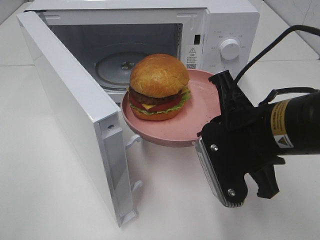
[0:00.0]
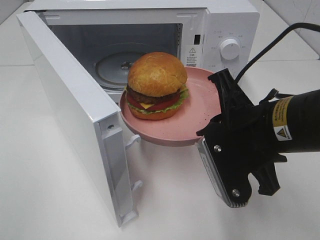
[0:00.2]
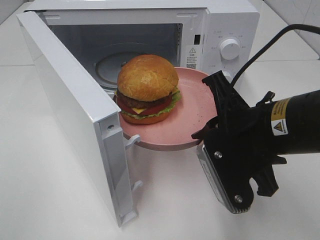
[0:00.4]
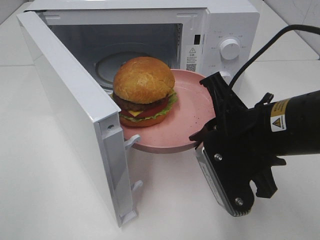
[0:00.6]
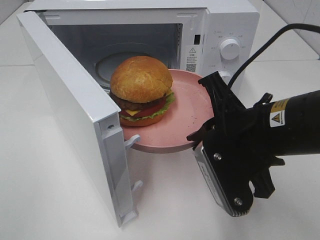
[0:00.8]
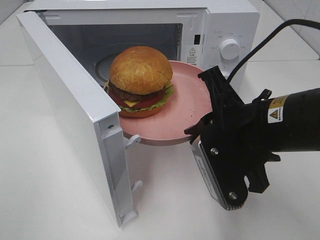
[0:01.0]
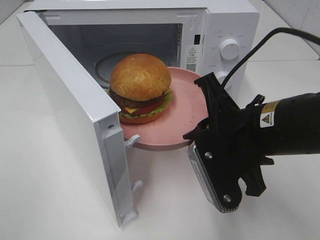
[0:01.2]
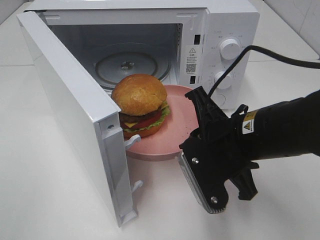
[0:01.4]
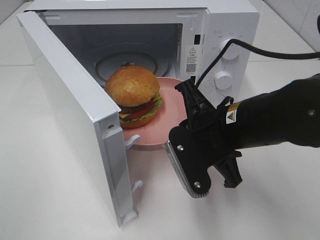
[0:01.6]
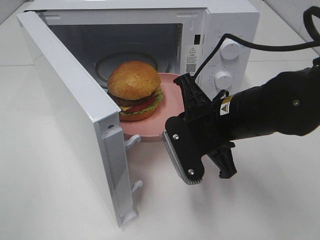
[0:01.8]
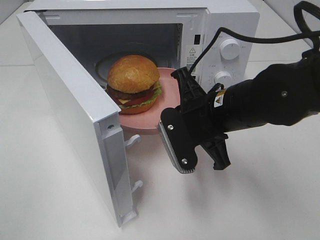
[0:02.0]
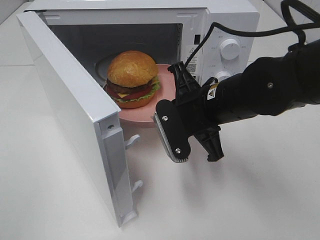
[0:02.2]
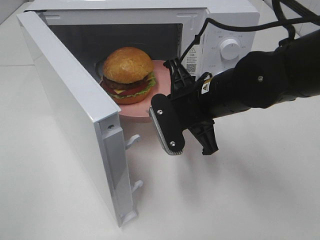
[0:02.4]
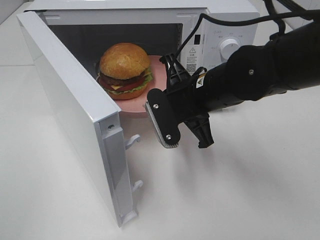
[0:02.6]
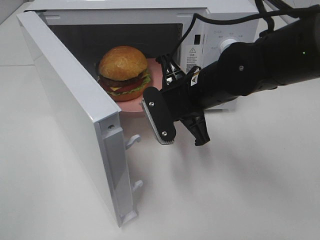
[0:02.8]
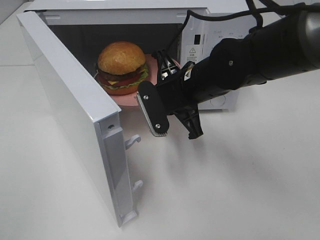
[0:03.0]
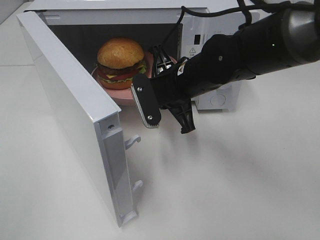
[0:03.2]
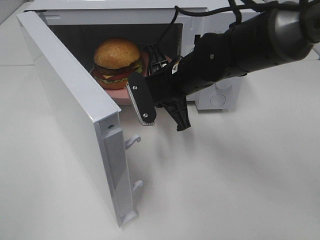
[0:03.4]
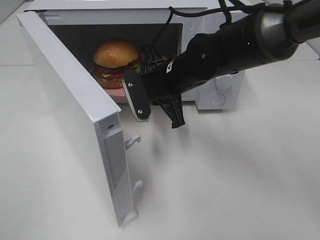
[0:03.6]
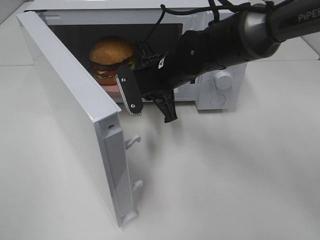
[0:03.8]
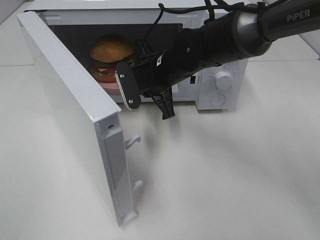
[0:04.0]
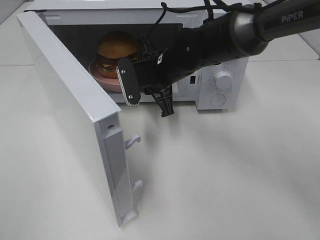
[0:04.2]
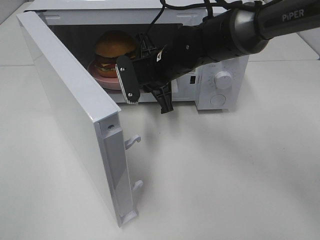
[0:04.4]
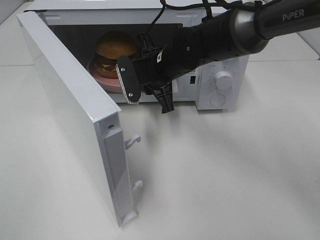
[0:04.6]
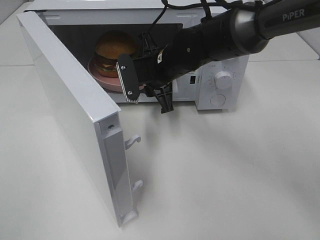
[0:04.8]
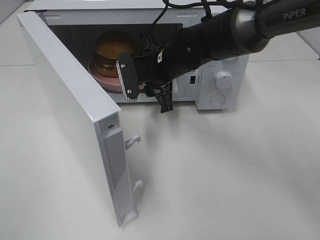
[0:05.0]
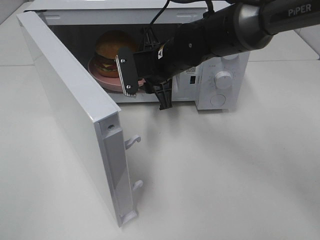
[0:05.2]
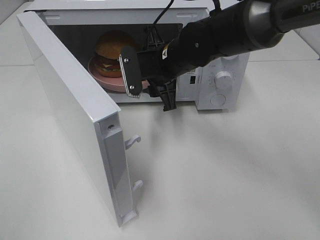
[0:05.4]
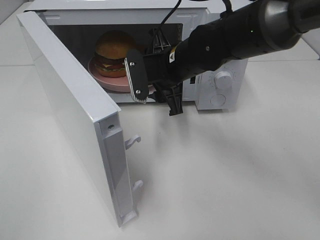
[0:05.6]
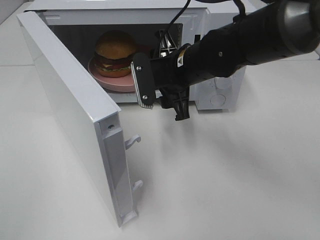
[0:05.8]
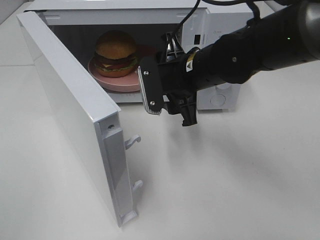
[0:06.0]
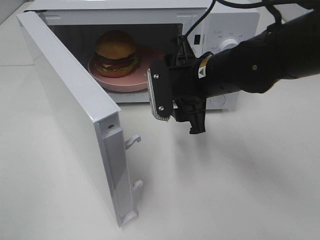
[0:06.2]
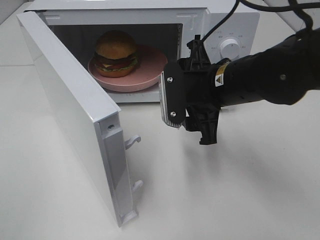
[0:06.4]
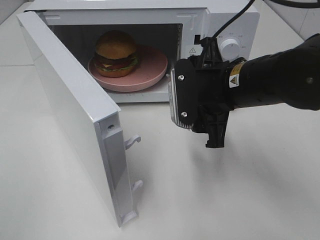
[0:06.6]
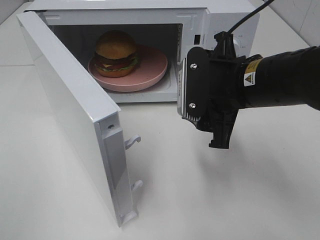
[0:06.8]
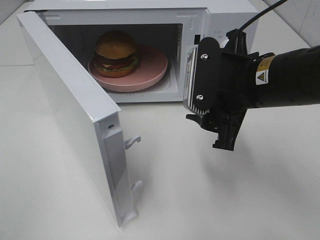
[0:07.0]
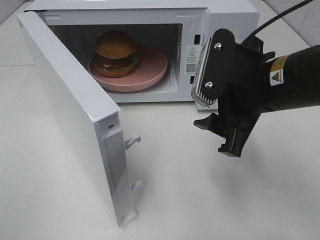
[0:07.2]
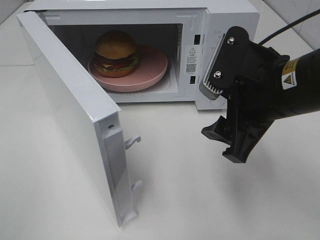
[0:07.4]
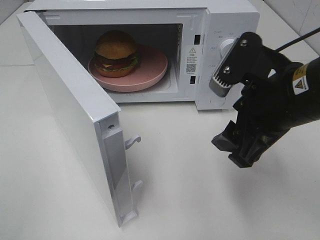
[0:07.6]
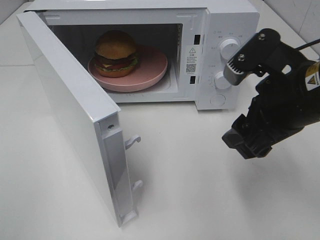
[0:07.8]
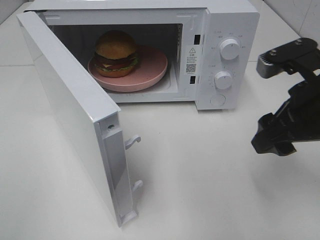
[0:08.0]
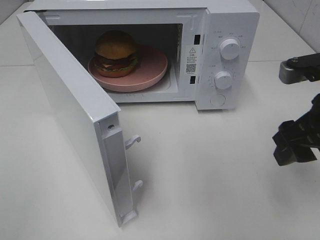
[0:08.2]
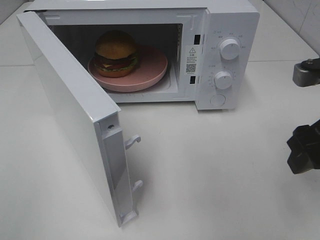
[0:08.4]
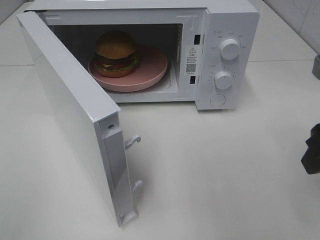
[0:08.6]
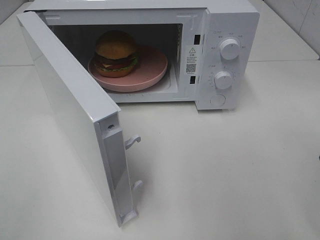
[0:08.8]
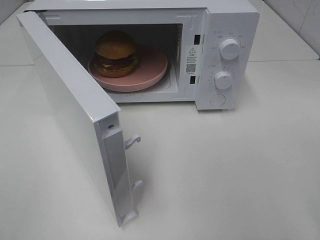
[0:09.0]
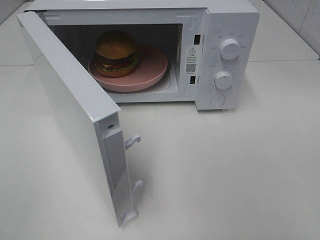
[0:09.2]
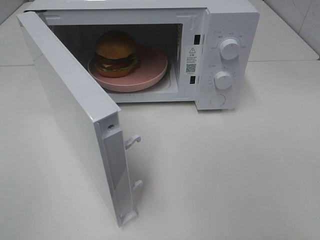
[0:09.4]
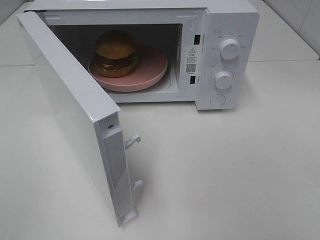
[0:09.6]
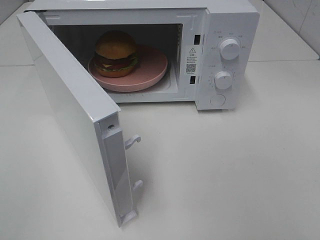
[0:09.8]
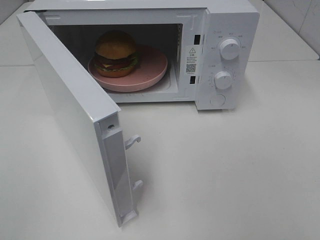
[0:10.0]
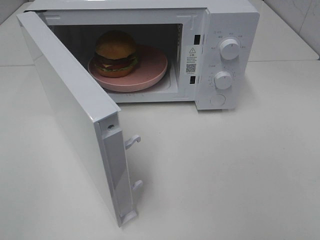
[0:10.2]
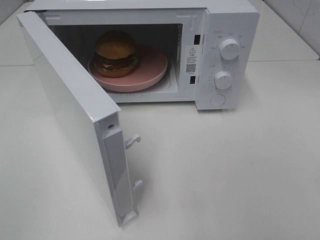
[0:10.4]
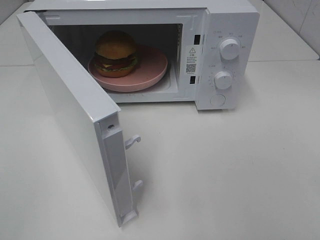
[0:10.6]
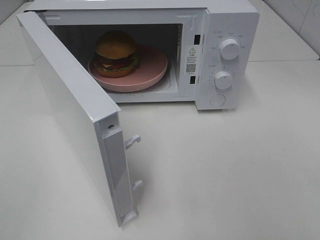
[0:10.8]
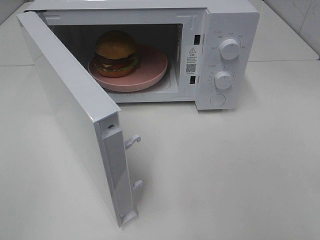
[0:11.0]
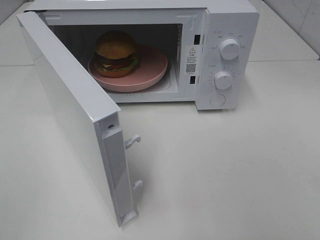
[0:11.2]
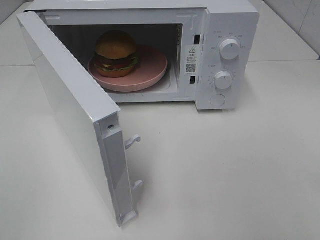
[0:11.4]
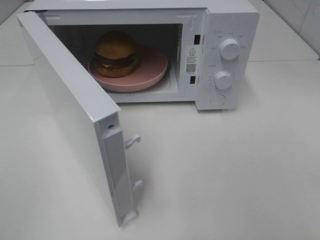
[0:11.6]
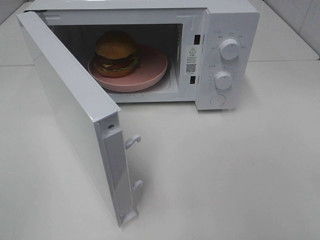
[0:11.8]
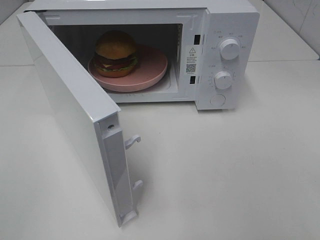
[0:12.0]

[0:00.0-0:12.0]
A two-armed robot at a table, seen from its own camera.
Task of the whole recording: Heat the burger.
Step, 0:00.0 to 0:04.4: Right hand: place the plate in the microwave.
0:00.0 to 0:01.6: The right gripper moves about 5 cm.
0:01.6 to 0:03.0: The right gripper is displaced forward by some 10 cm.
0:03.0 to 0:04.4: The right gripper goes approximately 5 cm forward.
0:04.4 to 0:06.0: The right gripper is displaced backward by about 5 cm, and opens.
0:06.0 to 0:07.6: The right gripper goes about 15 cm backward, to the right and upward.
0:07.6 to 0:09.0: The right gripper moves to the right, backward and upward, roughly 15 cm.
0:10.4 to 0:12.0: Neither gripper changes place.

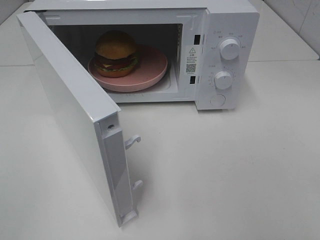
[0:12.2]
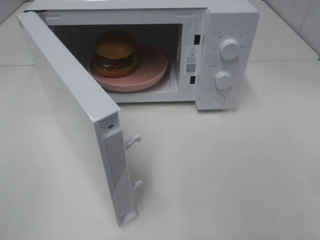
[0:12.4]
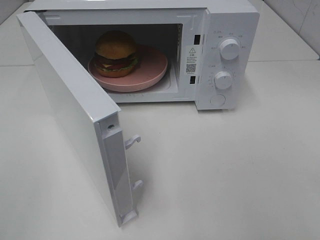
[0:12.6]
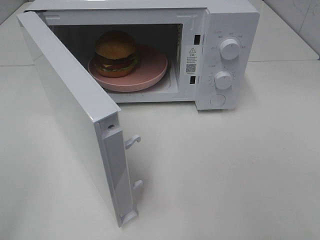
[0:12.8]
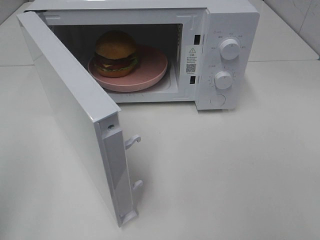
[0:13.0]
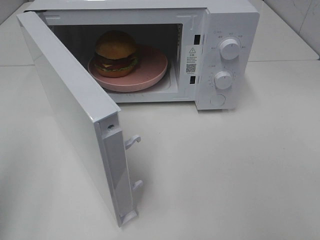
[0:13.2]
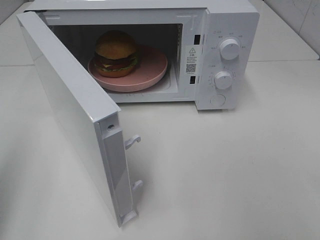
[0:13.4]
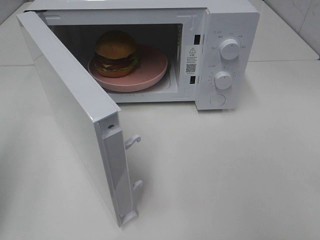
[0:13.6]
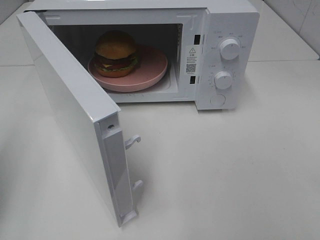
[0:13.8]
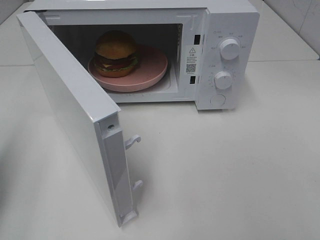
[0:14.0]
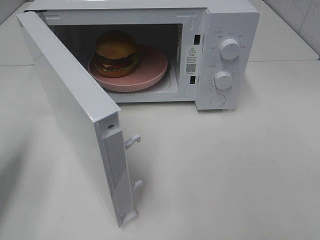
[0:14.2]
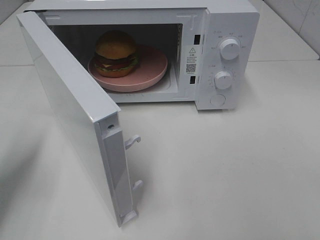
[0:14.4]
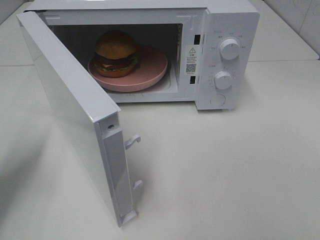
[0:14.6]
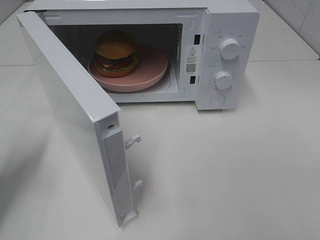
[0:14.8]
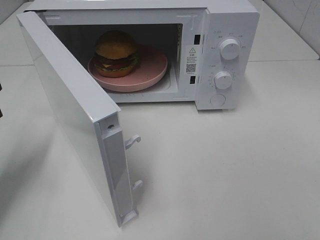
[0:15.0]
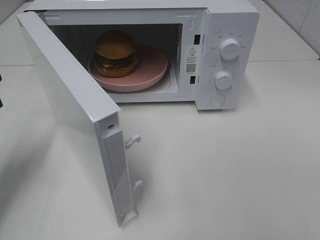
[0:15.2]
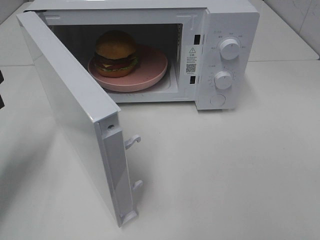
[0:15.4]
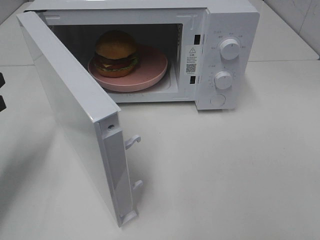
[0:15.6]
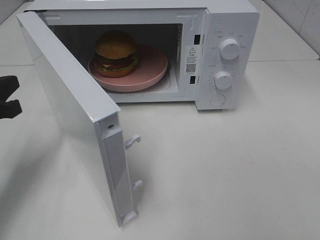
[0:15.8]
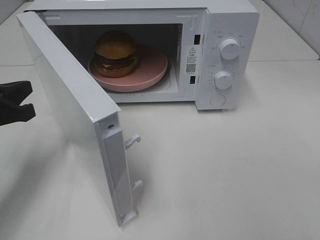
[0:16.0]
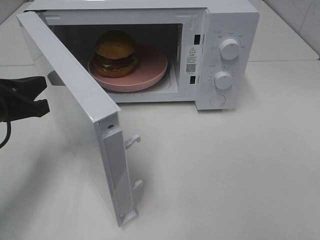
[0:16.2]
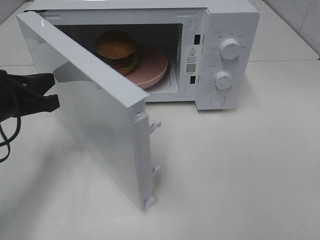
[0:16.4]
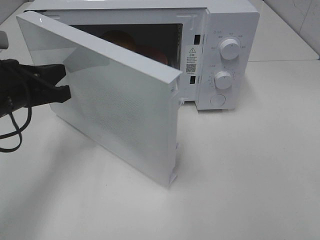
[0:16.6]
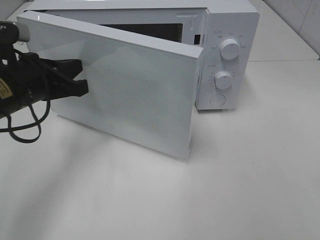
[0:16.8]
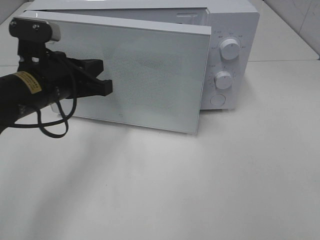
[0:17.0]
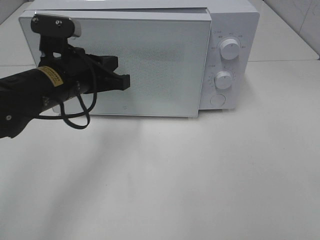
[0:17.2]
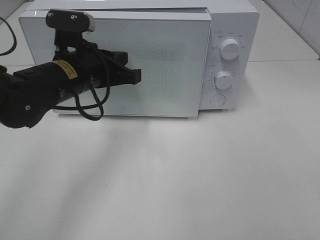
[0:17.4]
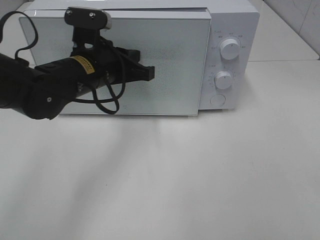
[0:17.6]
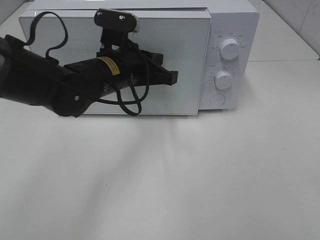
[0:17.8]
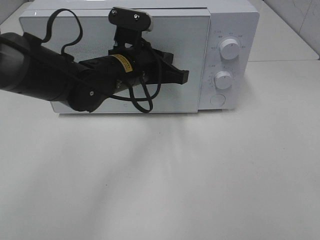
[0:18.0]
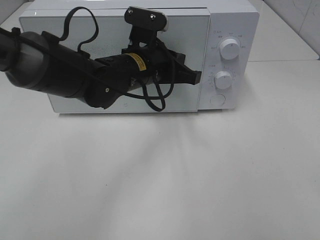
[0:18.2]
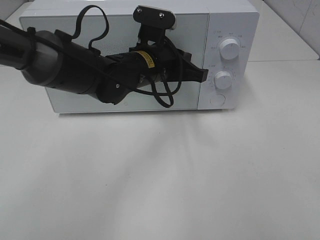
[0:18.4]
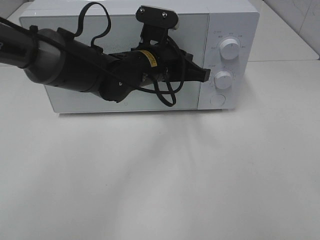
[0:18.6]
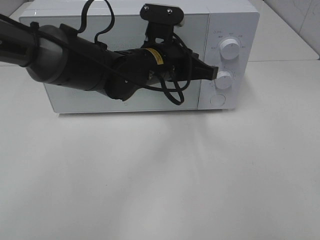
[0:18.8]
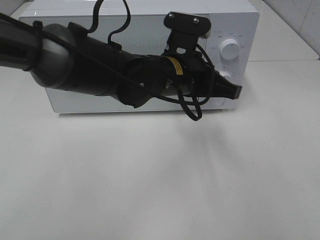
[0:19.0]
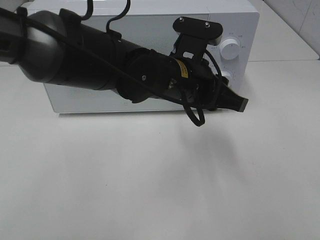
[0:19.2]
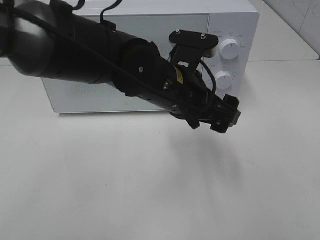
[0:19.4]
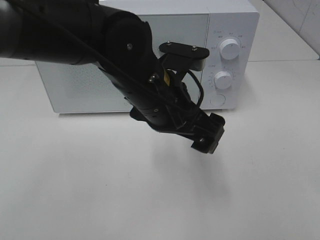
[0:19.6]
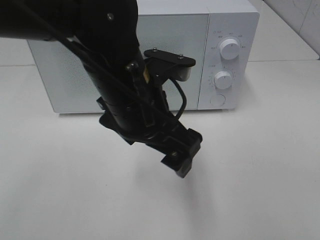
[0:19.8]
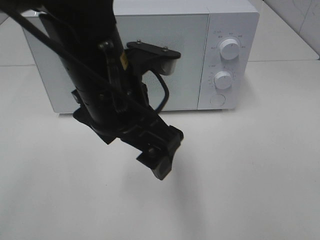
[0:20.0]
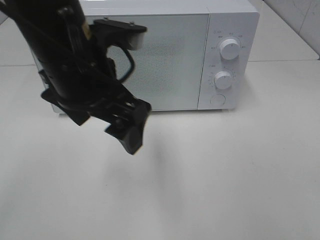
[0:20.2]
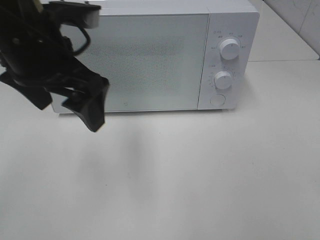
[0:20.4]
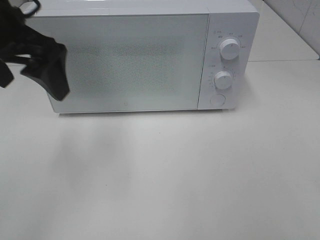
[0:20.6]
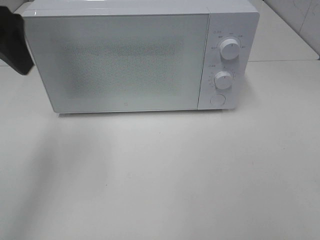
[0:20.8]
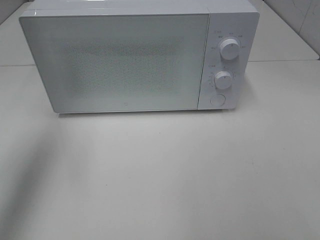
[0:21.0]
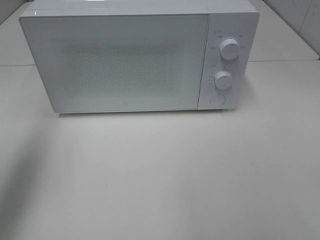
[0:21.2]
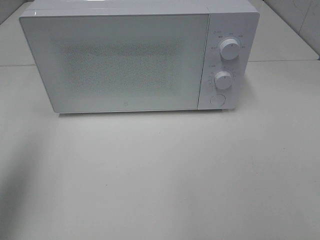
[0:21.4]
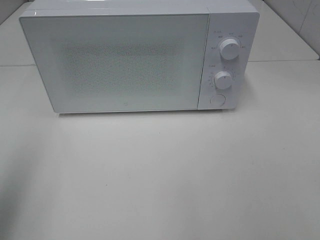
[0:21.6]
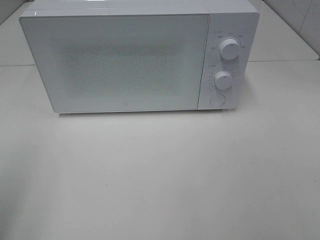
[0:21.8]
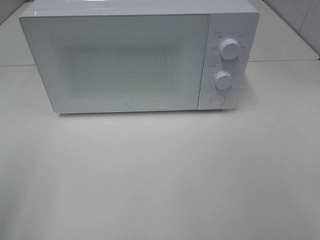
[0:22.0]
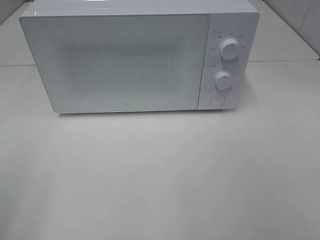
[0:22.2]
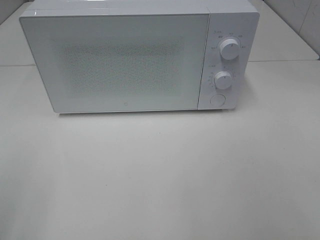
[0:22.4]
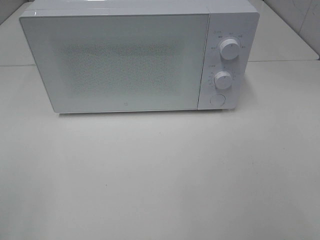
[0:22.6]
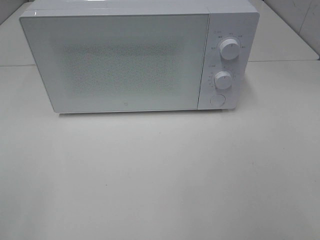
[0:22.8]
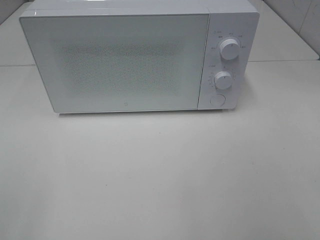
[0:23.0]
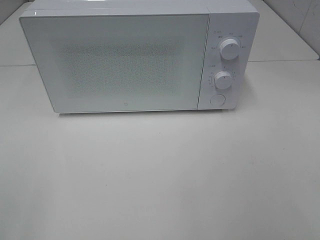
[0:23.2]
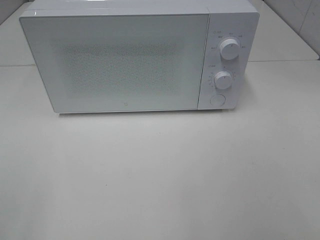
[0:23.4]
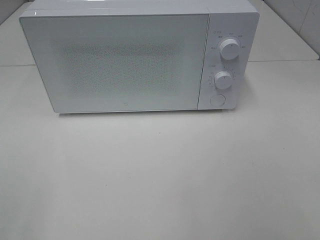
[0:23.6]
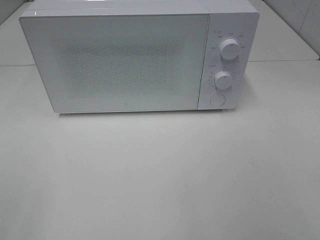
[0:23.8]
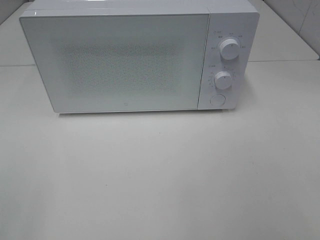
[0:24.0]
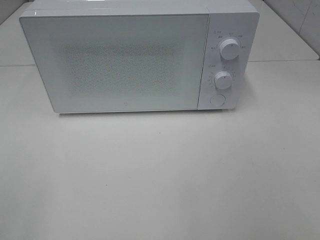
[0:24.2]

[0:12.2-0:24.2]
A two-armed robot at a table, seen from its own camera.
Task of the whole recording: Heat the burger.
Step, 0:12.2 to 0:18.6: Left hand: close the microwave door.
0:12.2 to 0:13.8: The left gripper moves forward, approximately 15 cm, and closes.
0:13.8 to 0:15.2: The left gripper shifts some 10 cm forward and downward.
0:15.2 to 0:16.6: The left gripper travels to the right by some 10 cm.
0:16.6 to 0:18.2: The left gripper is displaced to the right and forward by approximately 20 cm.
0:18.2 to 0:19.8: The left gripper heads backward and upward, covering about 15 cm, and opens up.
0:19.8 to 0:21.2: The left gripper goes some 35 cm to the left and upward.
0:21.2 to 0:22.6: The left gripper travels backward and downward by approximately 25 cm.
0:22.6 to 0:24.2: Both grippers stay about where they are.
